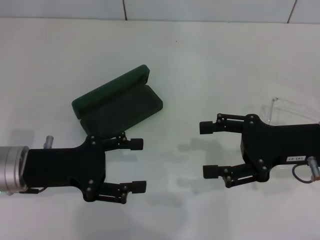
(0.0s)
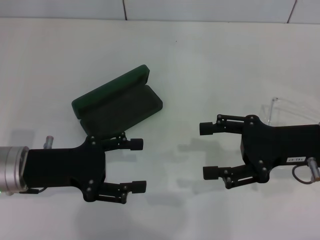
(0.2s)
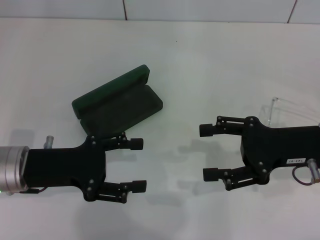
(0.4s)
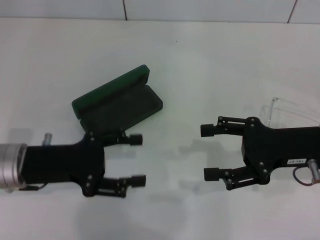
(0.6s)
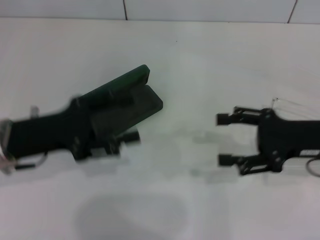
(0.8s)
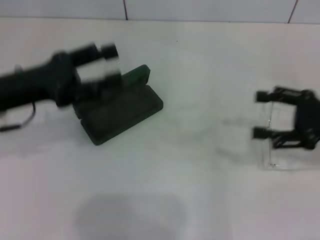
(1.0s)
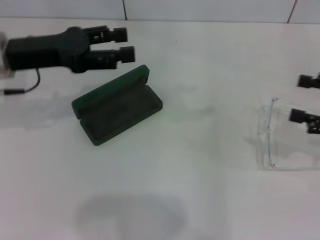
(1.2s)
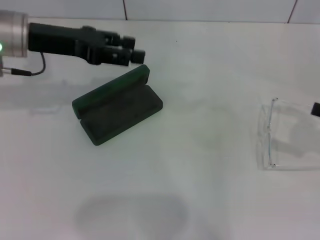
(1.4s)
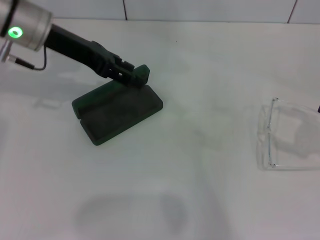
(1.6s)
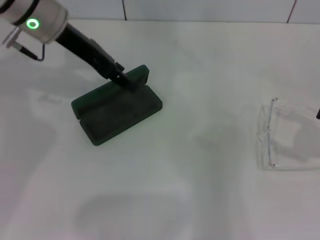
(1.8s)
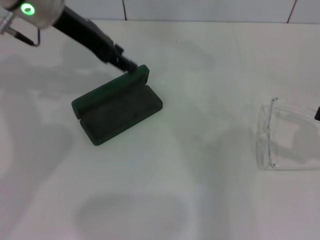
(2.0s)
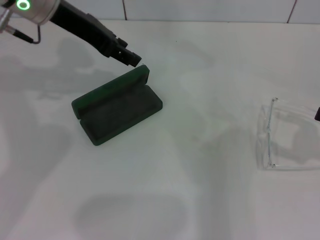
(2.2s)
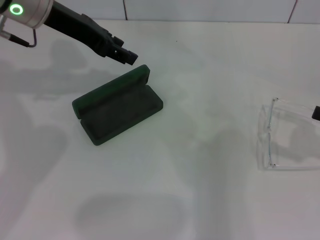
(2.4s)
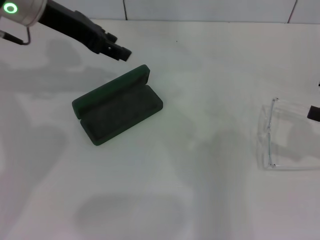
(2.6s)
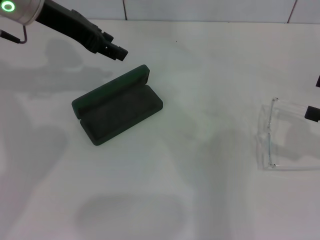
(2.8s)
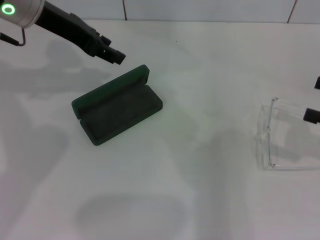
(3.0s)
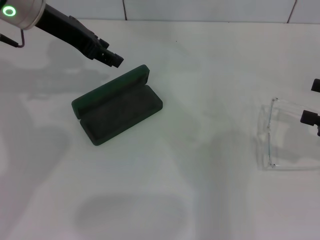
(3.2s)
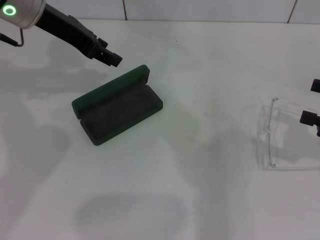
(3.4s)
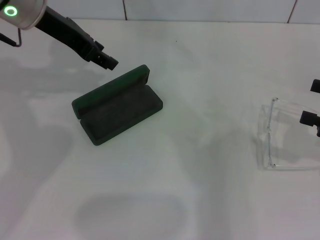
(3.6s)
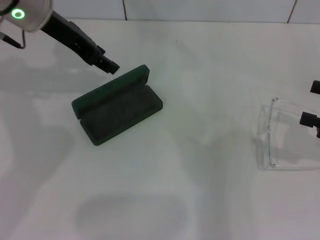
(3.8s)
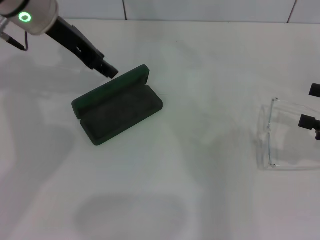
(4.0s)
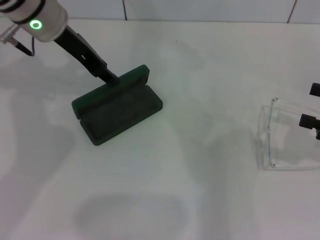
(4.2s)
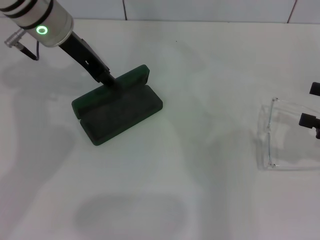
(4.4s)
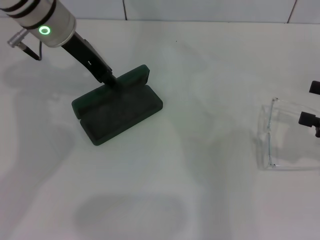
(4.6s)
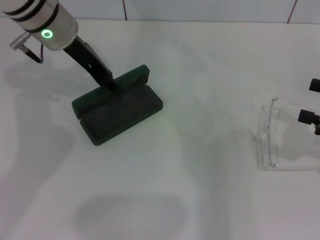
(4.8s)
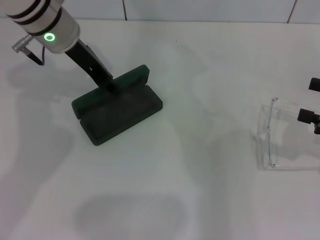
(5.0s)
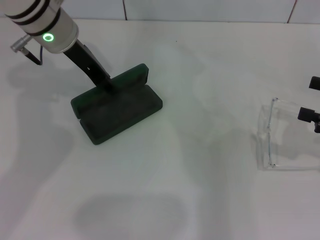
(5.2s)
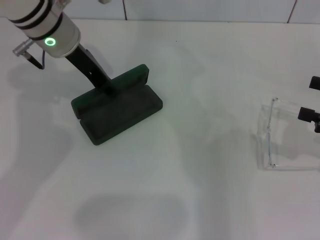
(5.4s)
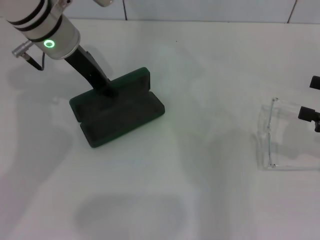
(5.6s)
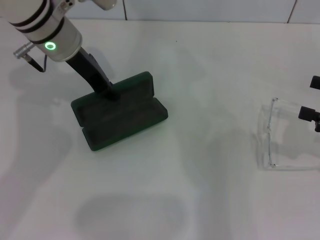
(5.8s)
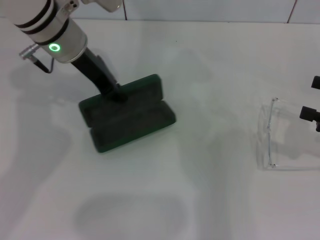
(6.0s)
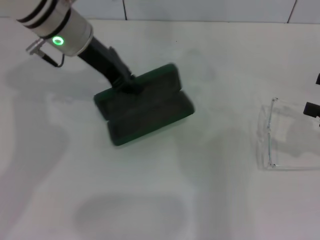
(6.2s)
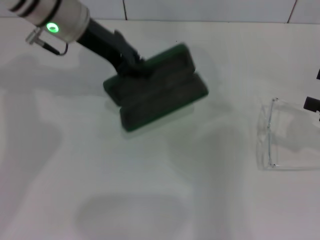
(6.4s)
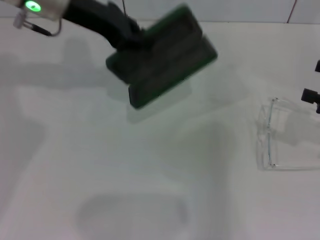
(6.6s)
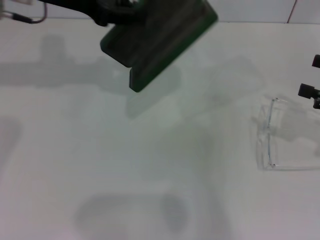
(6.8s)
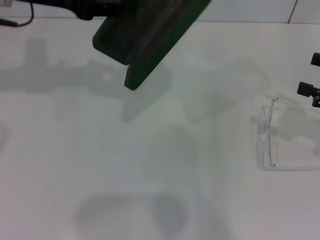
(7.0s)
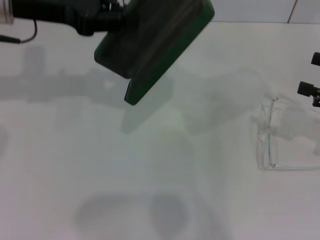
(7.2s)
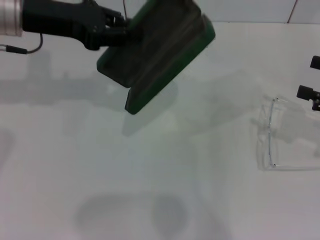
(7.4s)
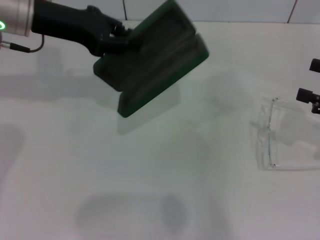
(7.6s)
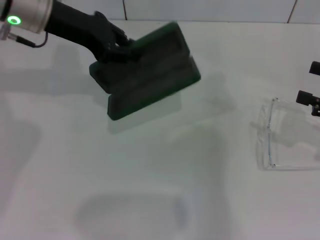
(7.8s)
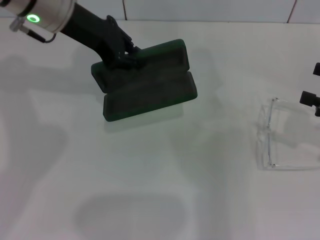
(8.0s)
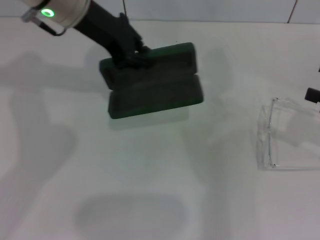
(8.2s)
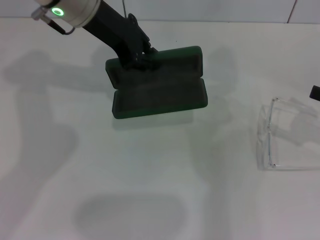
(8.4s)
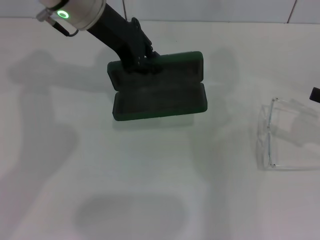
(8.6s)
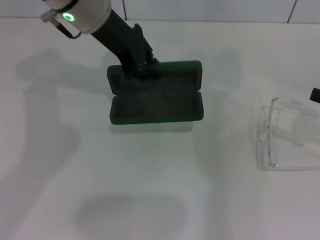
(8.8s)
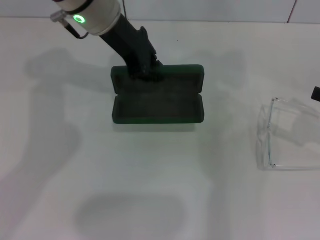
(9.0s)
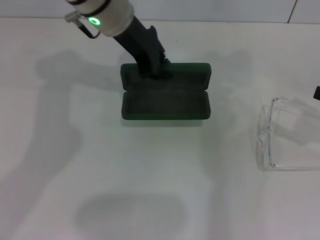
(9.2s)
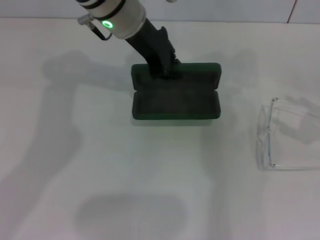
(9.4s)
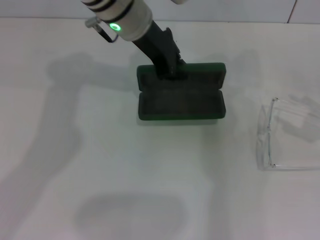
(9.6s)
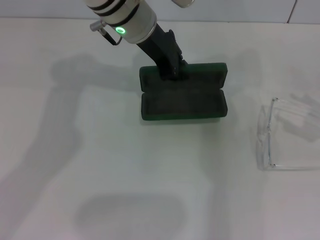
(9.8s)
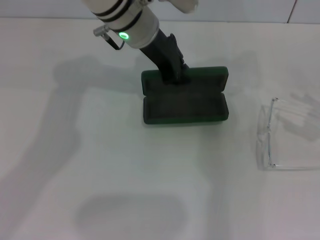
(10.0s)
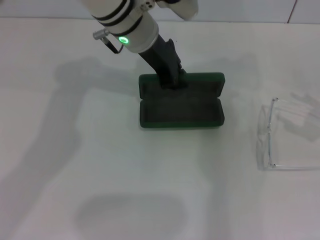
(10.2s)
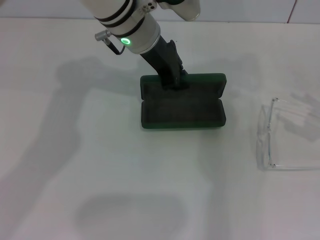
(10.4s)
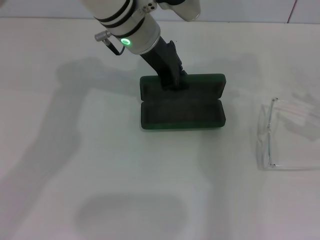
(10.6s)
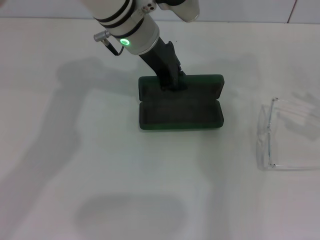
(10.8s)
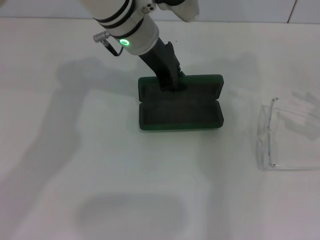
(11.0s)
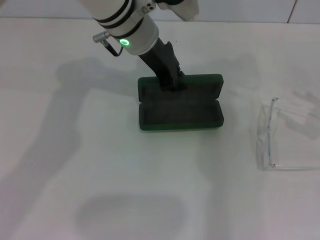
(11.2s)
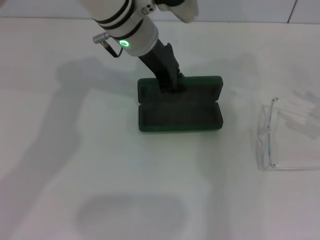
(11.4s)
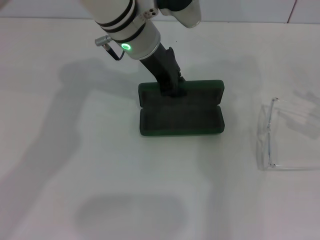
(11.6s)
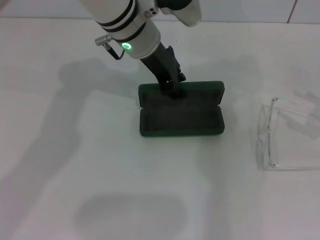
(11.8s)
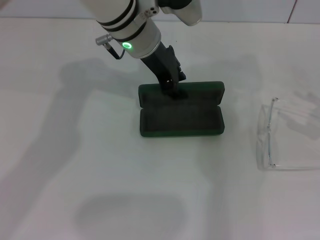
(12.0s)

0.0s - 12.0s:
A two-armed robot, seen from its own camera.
Step, 0.0s - 5.4s: Grab the glasses case with your left hand.
0.0s - 1.6s: The right gripper shifts some 15 cm to the right. The left gripper travels forward and upward by about 20 cm.
1.6s - 3.0s: There are only small adjustments of the grippers.
3.0s - 4.4s: The grippers make only small movements.
4.4s - 6.0s: The left gripper closes.
6.0s - 7.6s: The left gripper goes approximately 5 cm to the left.
7.6s - 9.0s: The left gripper shifts about 10 cm to the right.
9.0s - 10.4s: The left gripper shifts roughly 5 cm to the right.
10.4s - 12.0s: Both grippers stay about where they are.

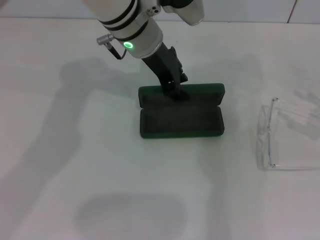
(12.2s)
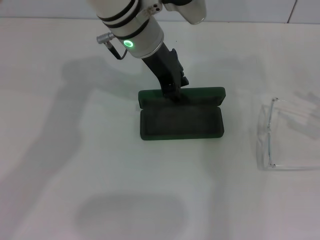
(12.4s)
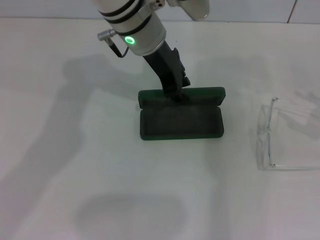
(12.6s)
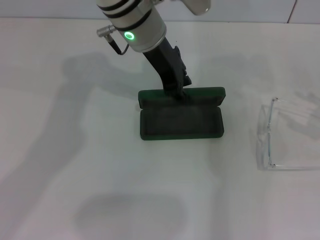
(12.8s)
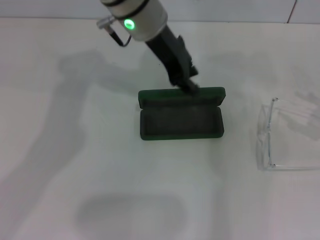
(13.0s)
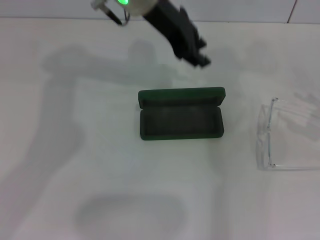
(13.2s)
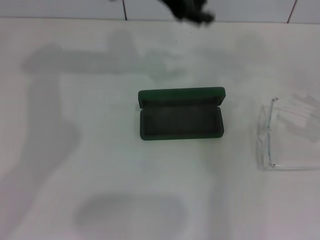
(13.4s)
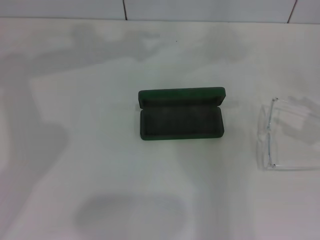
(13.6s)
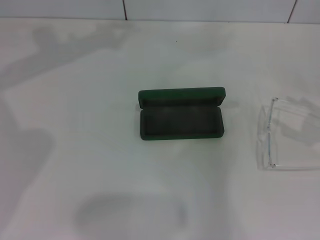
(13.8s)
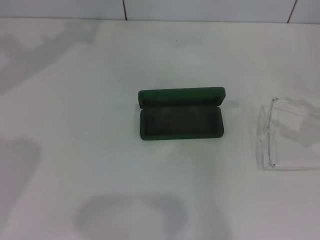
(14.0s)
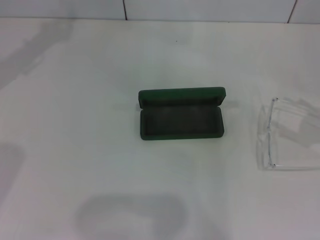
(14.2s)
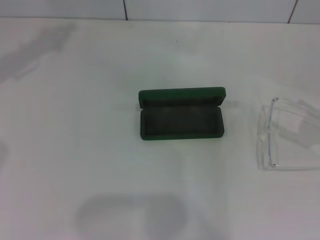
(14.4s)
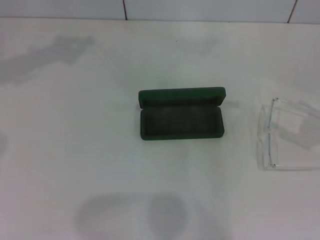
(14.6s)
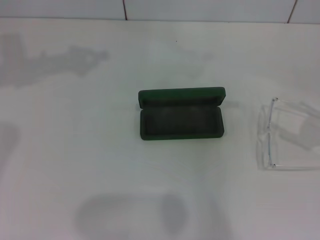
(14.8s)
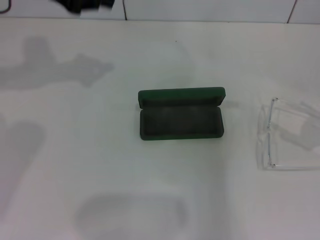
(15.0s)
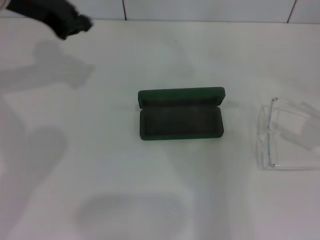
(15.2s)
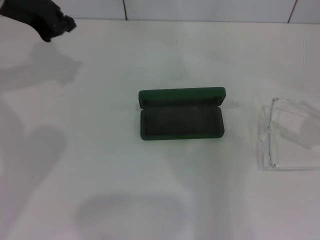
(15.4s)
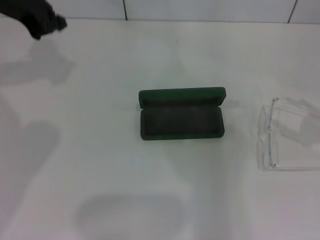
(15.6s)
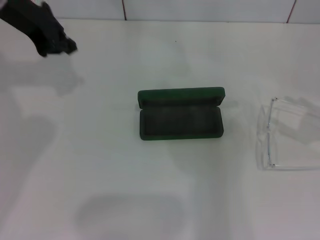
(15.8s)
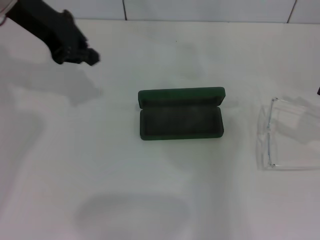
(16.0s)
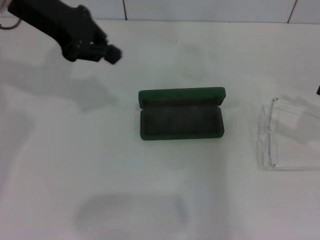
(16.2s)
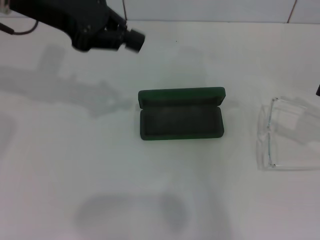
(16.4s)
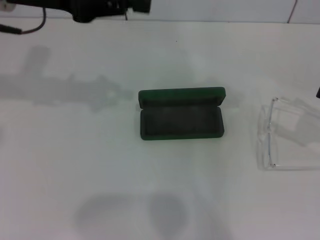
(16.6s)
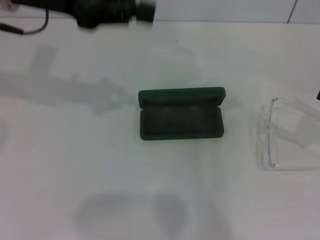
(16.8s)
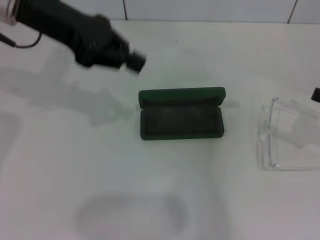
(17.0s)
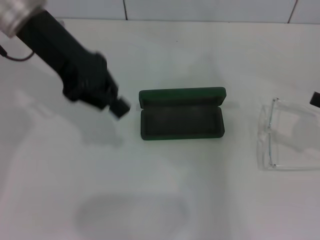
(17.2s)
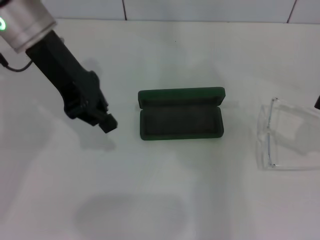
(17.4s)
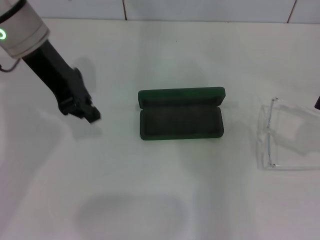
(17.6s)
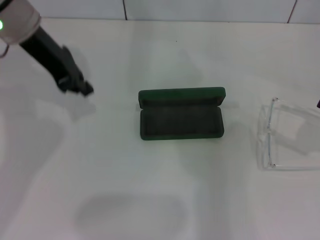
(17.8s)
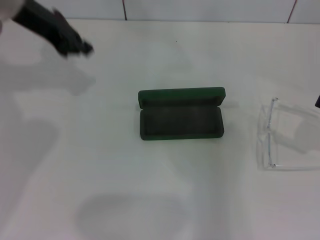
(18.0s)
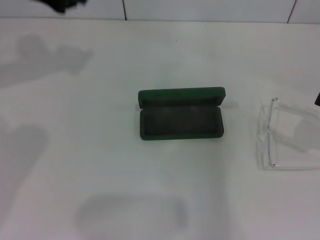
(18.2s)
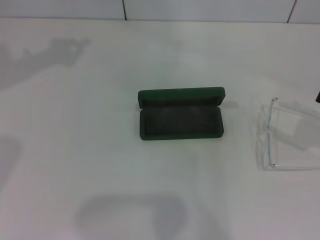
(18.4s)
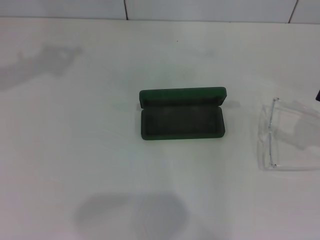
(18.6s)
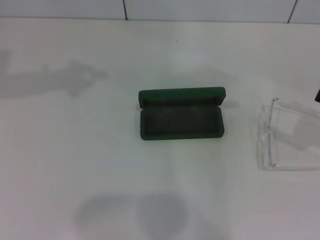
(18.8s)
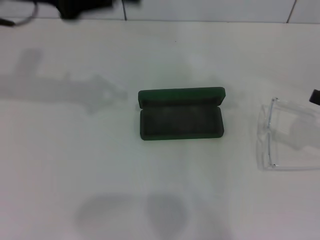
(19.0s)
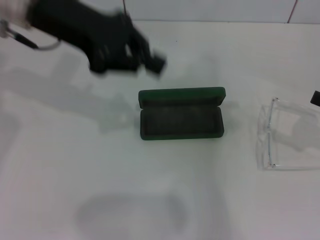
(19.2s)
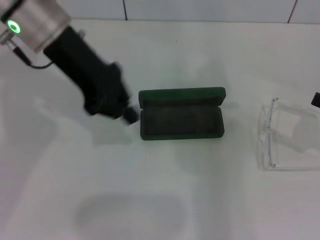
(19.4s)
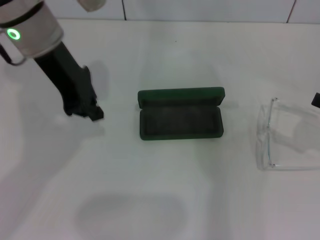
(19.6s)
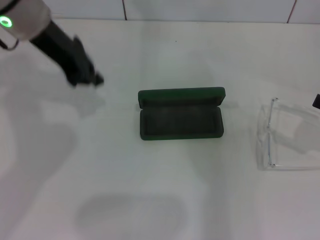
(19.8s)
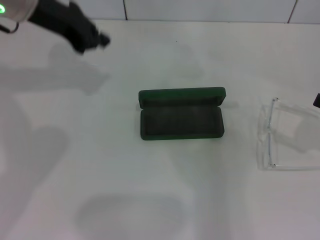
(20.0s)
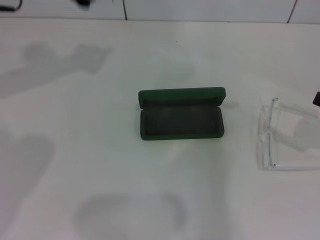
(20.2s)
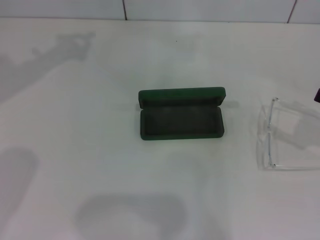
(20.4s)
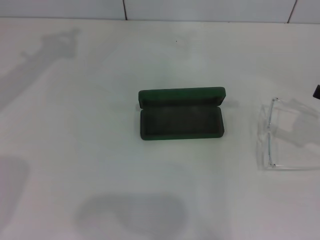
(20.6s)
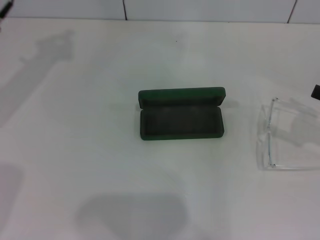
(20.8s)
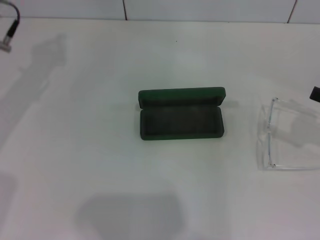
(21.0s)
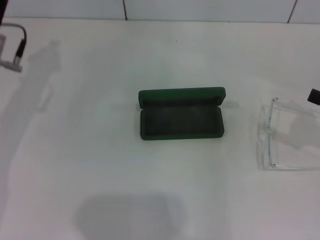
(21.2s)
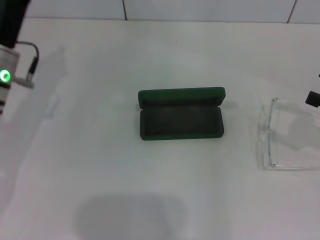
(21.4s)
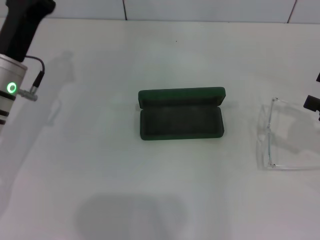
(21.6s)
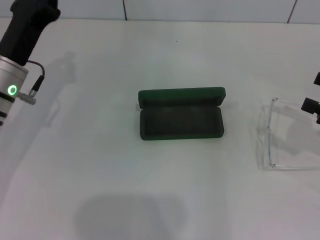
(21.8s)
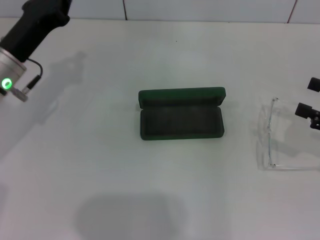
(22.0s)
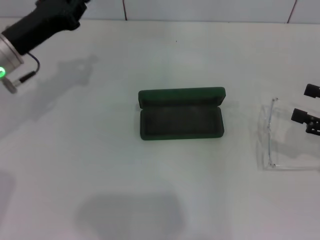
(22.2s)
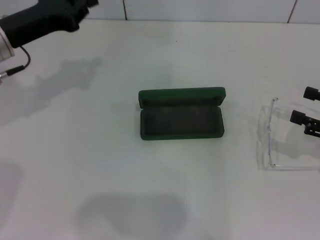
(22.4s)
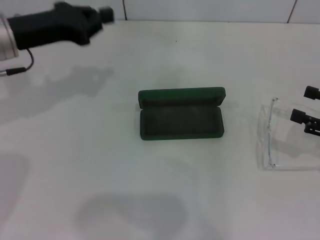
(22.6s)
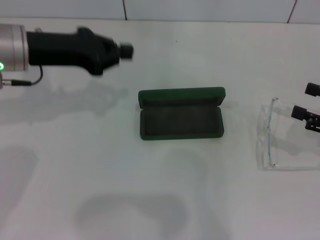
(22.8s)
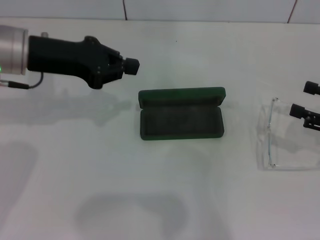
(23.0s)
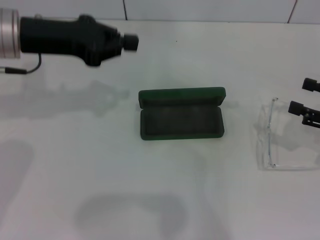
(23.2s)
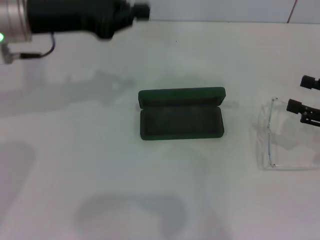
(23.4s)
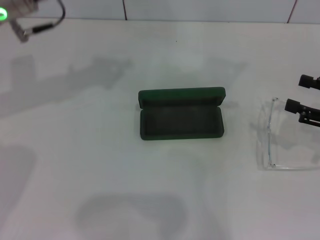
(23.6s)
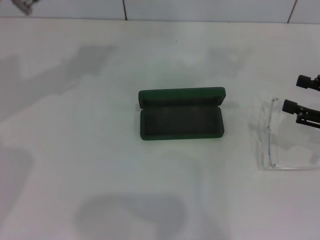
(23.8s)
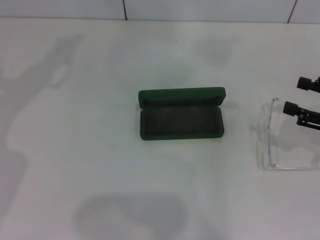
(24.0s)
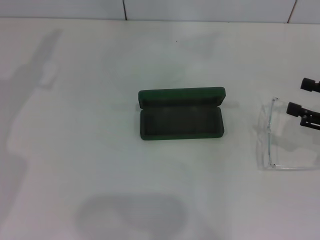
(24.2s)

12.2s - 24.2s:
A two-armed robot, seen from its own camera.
12.2s - 13.8s: The left gripper shifts roughly 15 cm to the left and upward.
13.8s - 15.2s: The left gripper closes up.
18.2s - 19.8s: The left gripper heads to the right, covering about 5 cm.
19.8s - 21.2s: The left gripper travels downward, backward and to the left by some 15 cm.
22.6s - 24.2s: The left gripper is displaced upward by about 5 cm.
